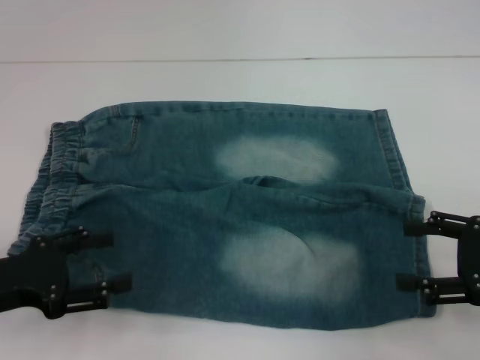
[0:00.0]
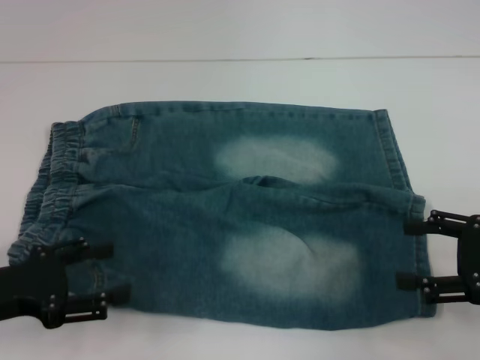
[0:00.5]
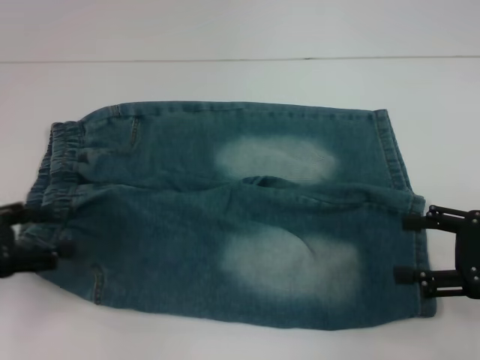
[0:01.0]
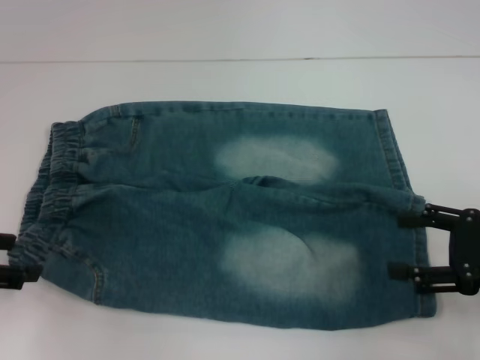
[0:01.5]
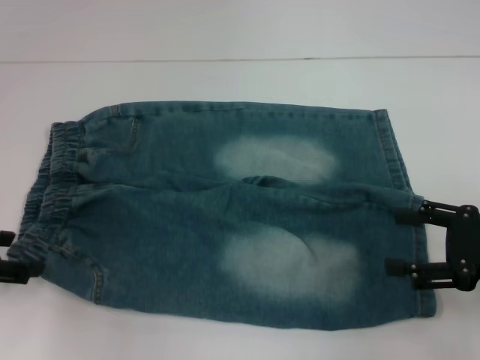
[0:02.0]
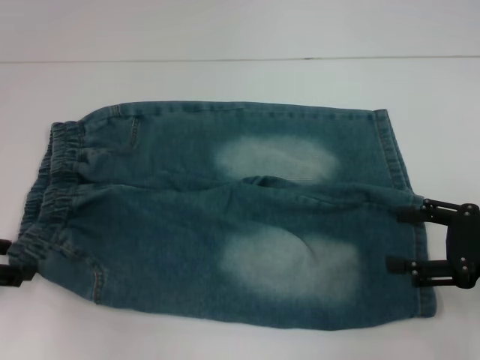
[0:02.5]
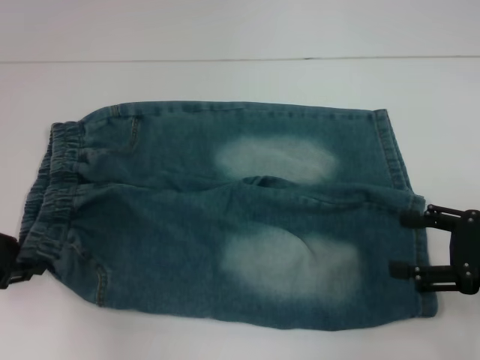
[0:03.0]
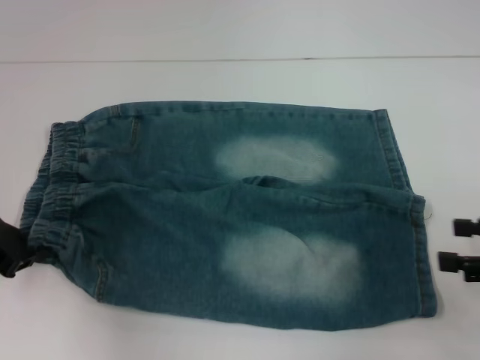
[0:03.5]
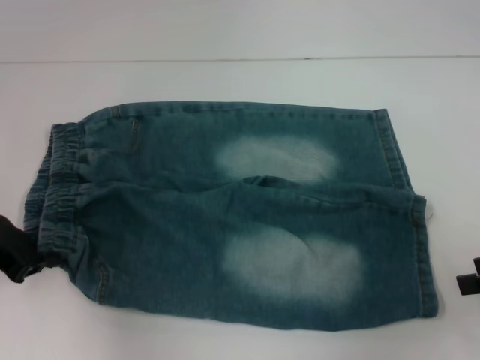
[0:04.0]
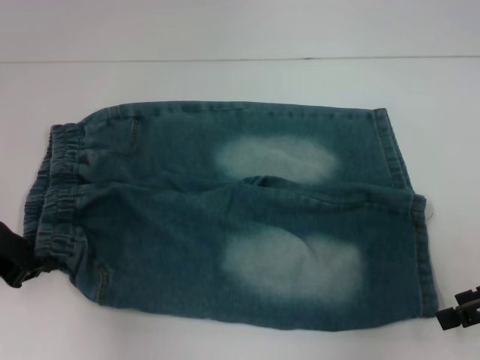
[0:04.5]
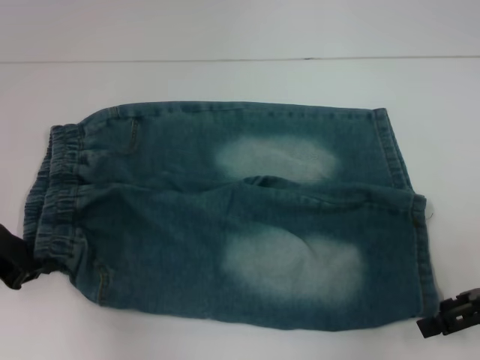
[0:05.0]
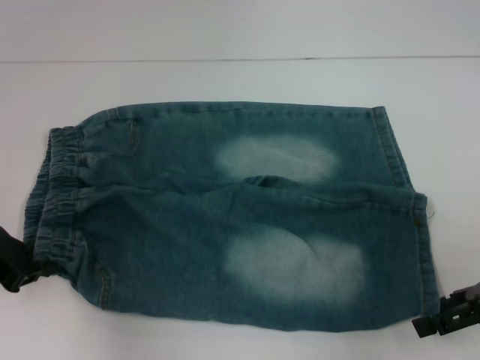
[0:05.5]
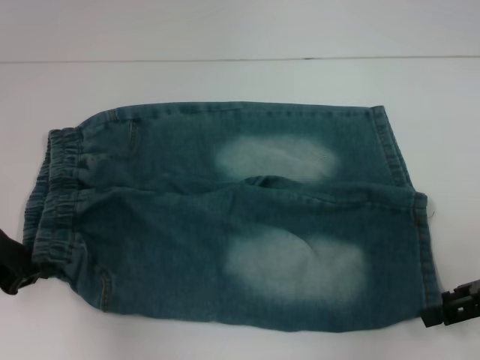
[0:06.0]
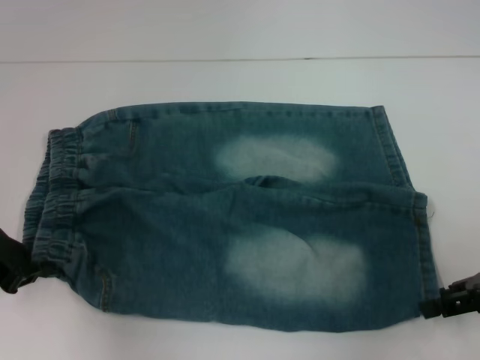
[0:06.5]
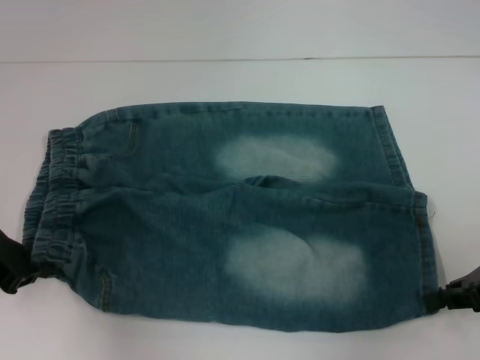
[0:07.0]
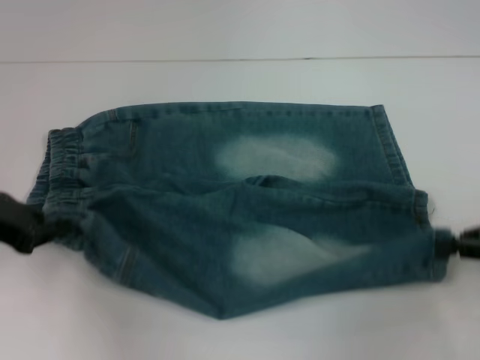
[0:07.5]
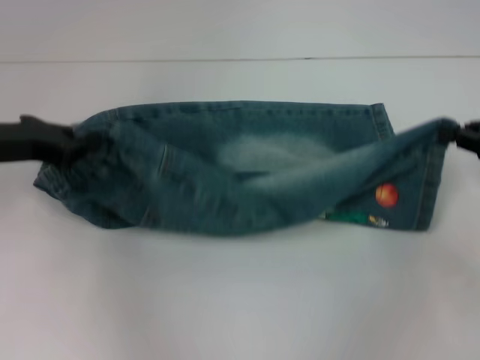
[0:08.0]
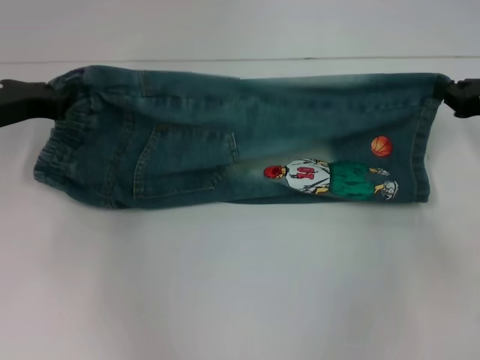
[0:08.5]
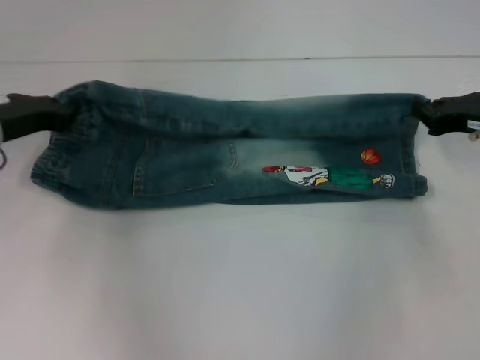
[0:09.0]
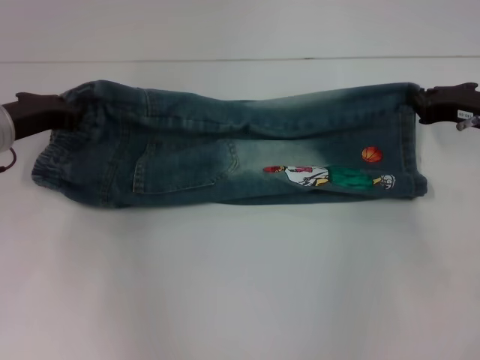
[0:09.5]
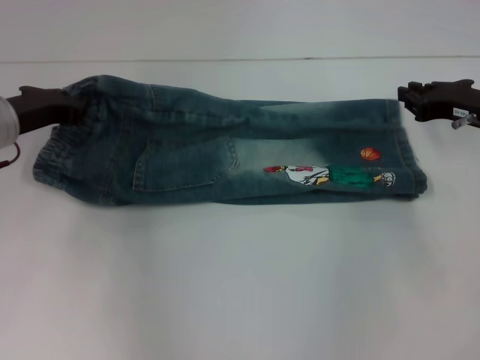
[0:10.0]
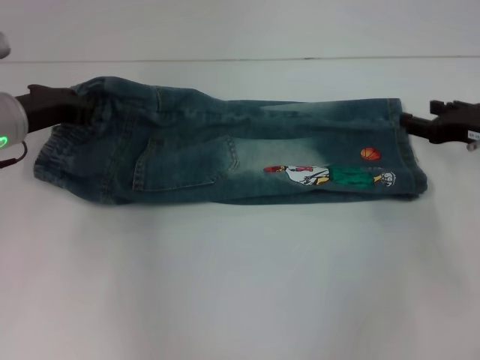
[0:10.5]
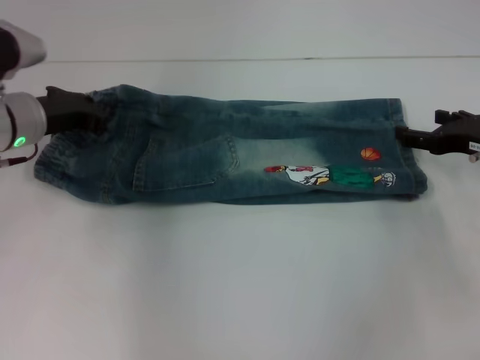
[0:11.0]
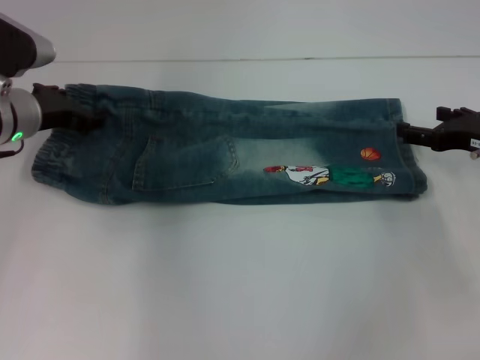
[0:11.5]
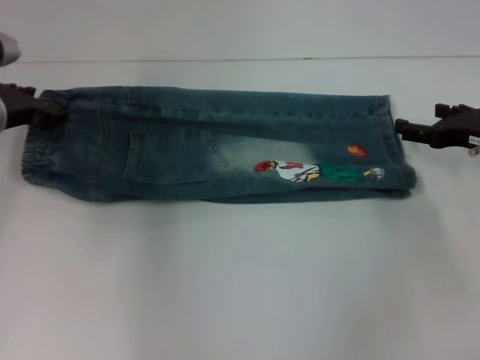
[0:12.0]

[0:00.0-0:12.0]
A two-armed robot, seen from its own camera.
Step, 0:00.0 to 0:03.0: Hold the lower left waistband with your left hand.
Step, 0:04.0 to 0:07.0: Grab the lower right pant leg with your right hand.
Step, 0:07.5 to 0:10.5: Fold upward with your right hand.
0:00.0 to 0:02.0: The left gripper ends up some 5 cm from where it was.
0:02.0 to 0:04.0: The left gripper closes up. Meanwhile the right gripper moves some 5 cm.
0:04.0 to 0:06.0: The right gripper ends up about 5 cm from where it was.
0:06.0 to 0:08.0: The grippers both shift forward by approximately 5 cm. The right gripper closes.
0:08.0 to 0:10.0: The right gripper travels forward and to the left by some 10 cm, while the left gripper changes place by roughly 5 cm.
0:10.0 to 0:12.0: The right gripper opens. The left gripper opens up.

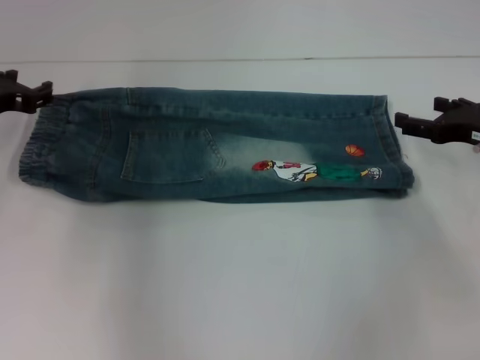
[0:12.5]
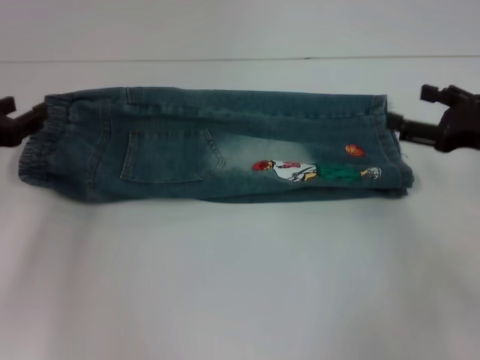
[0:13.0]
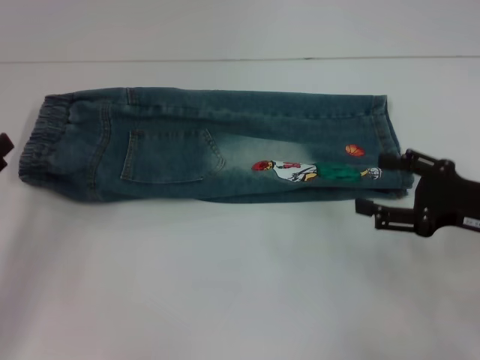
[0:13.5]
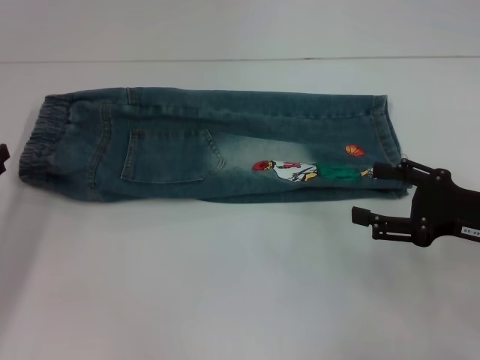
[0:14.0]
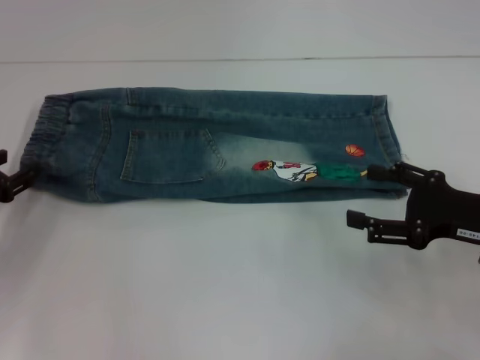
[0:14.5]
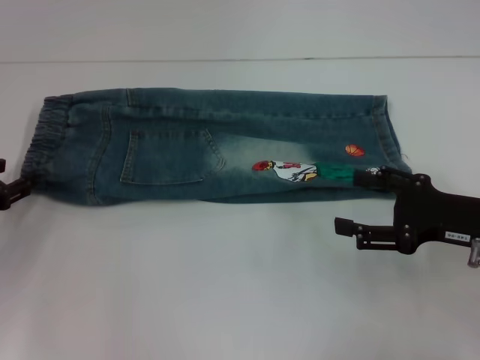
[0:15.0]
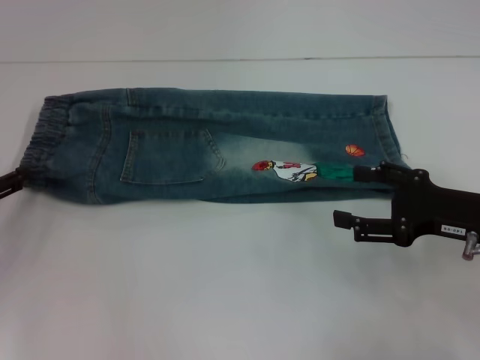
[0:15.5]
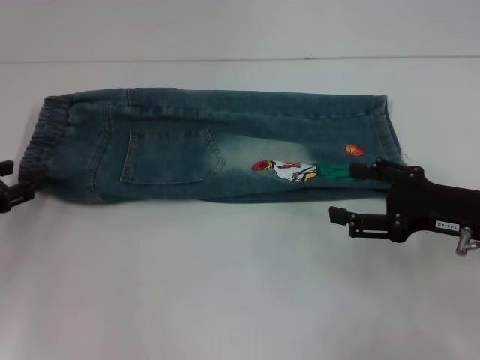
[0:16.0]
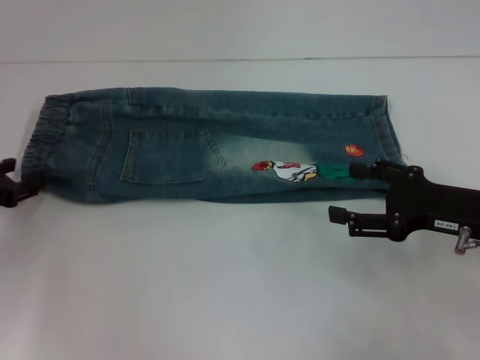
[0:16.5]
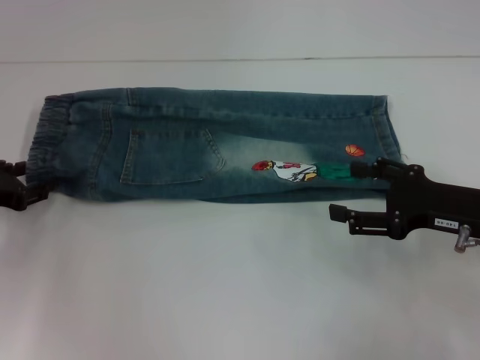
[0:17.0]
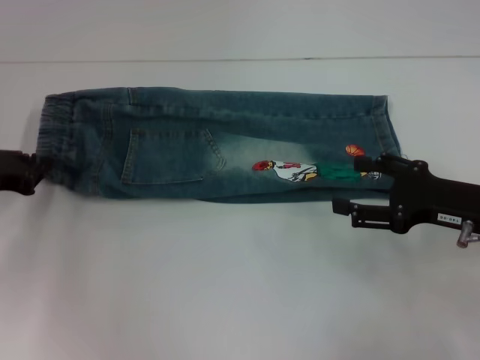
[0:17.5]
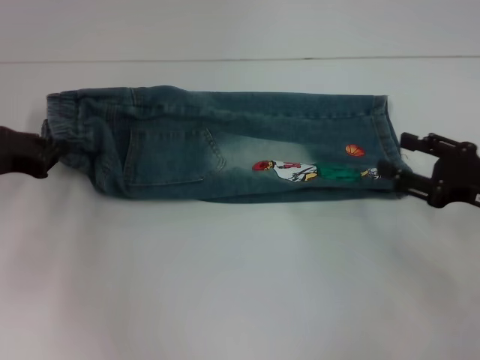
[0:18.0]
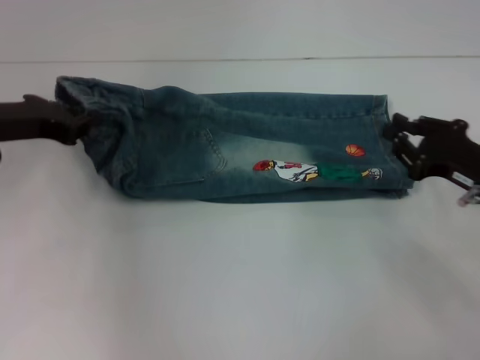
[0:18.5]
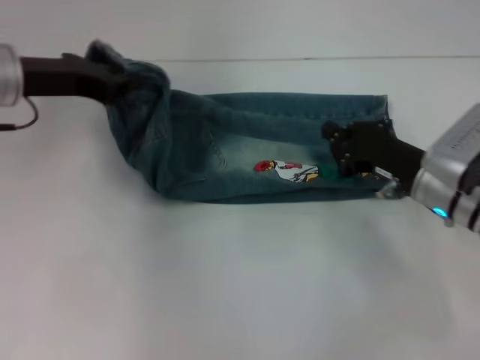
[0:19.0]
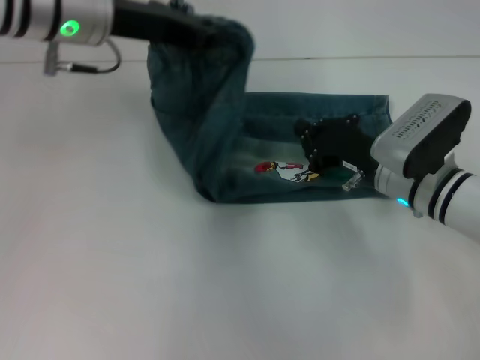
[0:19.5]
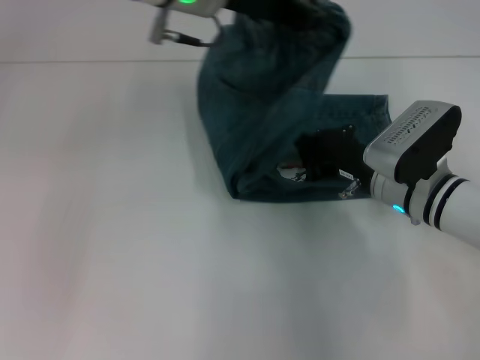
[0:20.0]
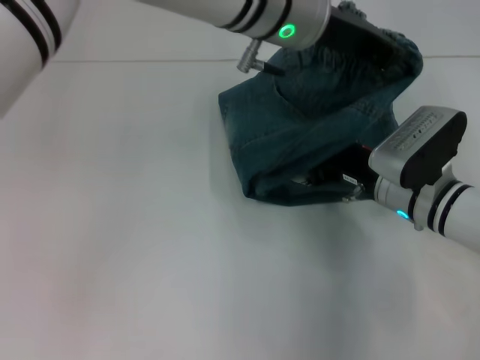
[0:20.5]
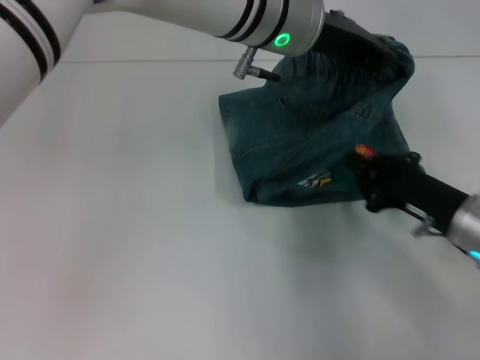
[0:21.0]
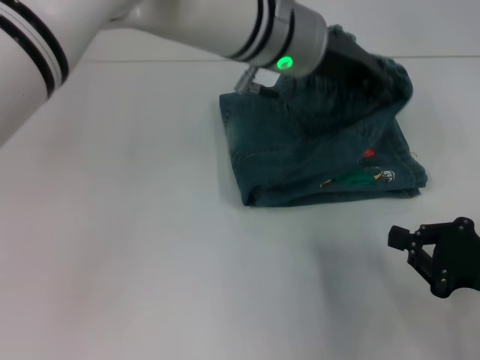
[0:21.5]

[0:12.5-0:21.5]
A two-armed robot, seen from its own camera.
Step, 0:13.0 to 0:17.5: Hold the waistband with your left hand.
Step, 0:18.0 to 0:20.5: Press the middle of the pants with your right hand.
0:12.5 to 0:14.5: The right gripper goes some 10 cm backward. The left gripper goes about 10 cm backward and downward.
0:14.5 to 0:17.0: The grippers stay close to where they were, moving slightly.
0:17.0 to 0:19.5: The left gripper heads to the right, upward and forward, covering about 25 cm, and closes its fingers; the right gripper heads to the left and forward, covering some 10 cm, and closes its fingers.
0:19.5 to 0:21.5: The right gripper travels backward and to the right by some 20 cm. The left gripper moves to the right, some 15 cm.

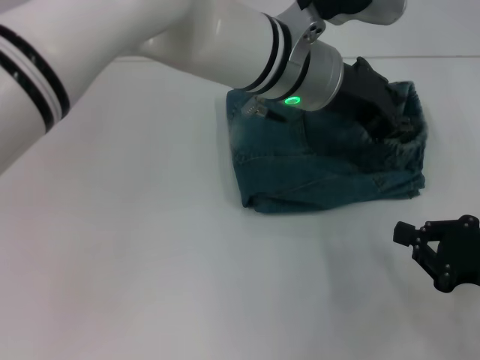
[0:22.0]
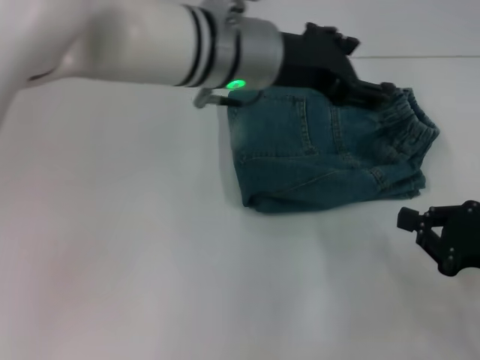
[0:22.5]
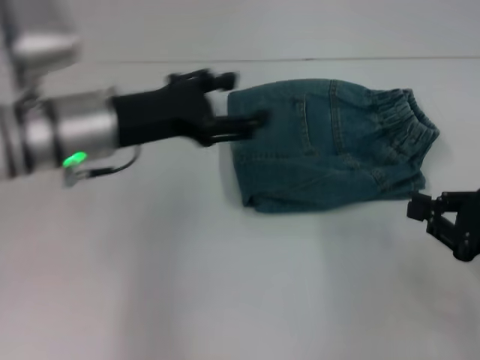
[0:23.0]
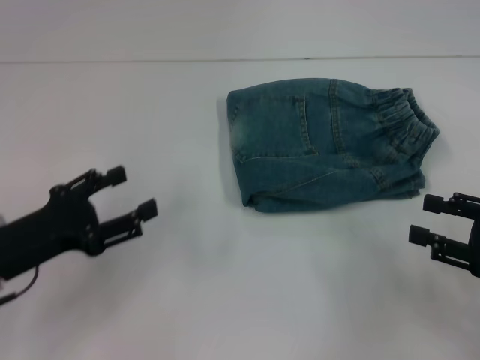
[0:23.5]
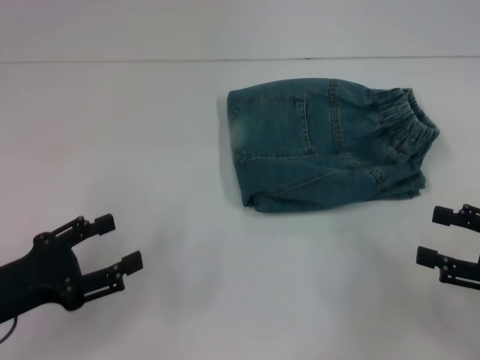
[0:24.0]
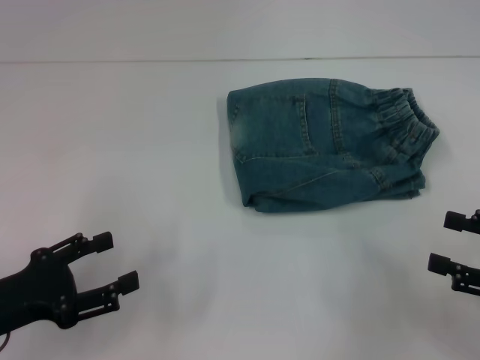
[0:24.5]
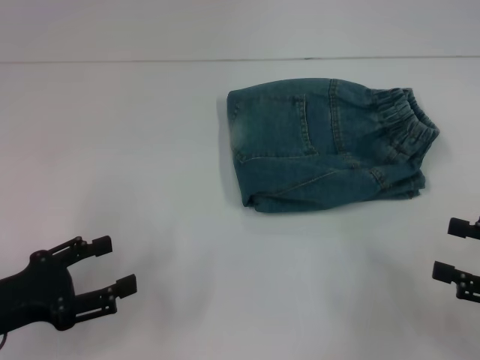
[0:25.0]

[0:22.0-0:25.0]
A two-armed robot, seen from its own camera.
0:22.0 to 0:23.5: The left gripper shifts roughly 35 cm to the left, downward and backward, and opens its fingers. Meanwhile the right gripper opens its fingers.
0:23.5 to 0:25.0: The left gripper moves approximately 5 cm, while the right gripper opens up.

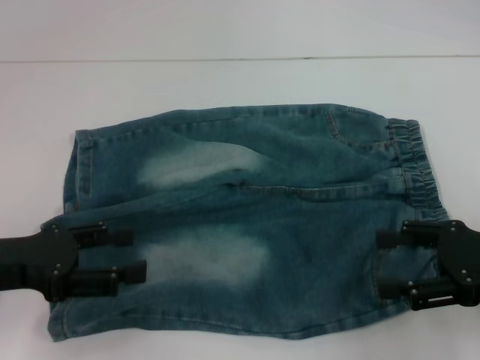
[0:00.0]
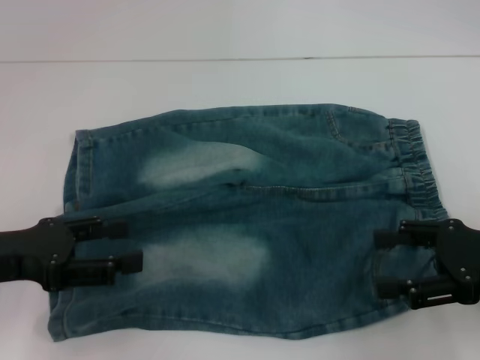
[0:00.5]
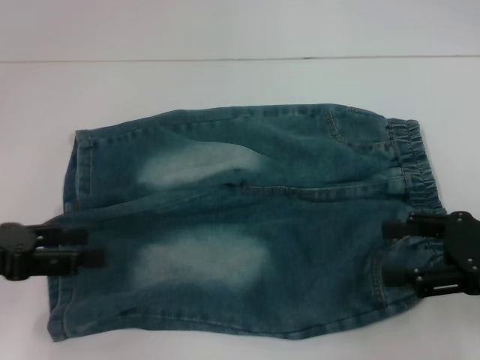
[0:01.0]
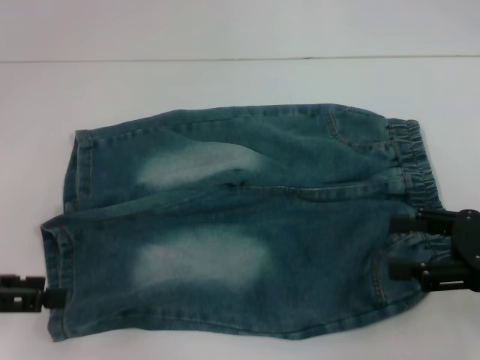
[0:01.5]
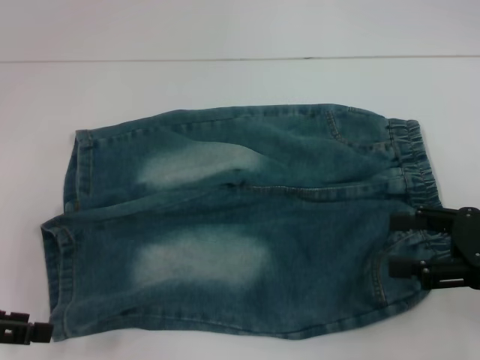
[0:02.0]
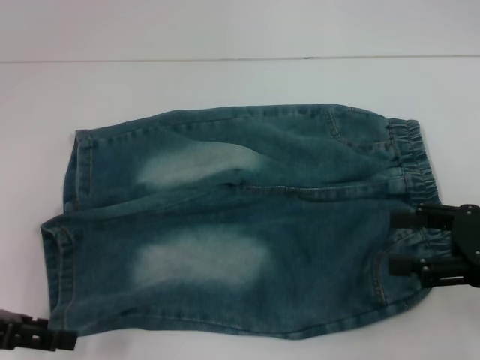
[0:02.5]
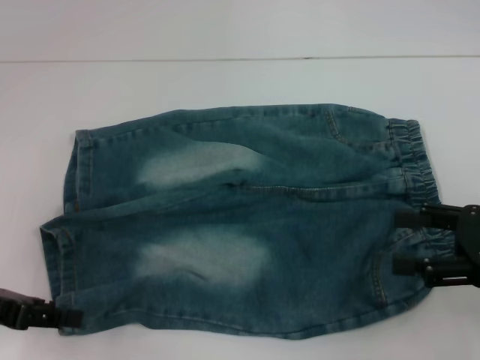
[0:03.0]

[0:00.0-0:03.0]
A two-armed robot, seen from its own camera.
0:00.0 to 0:01.5: The left gripper shifts about 5 cm to the left.
0:01.5 to 0:03.0: The grippers make only small movements.
